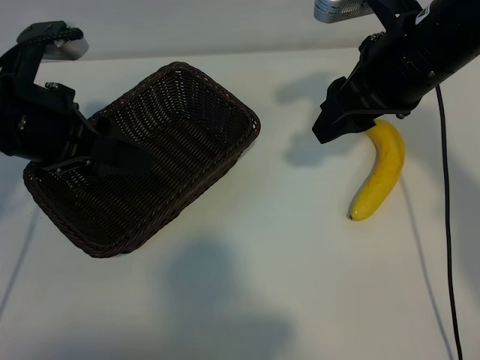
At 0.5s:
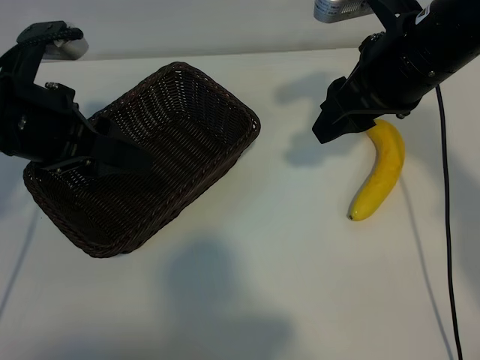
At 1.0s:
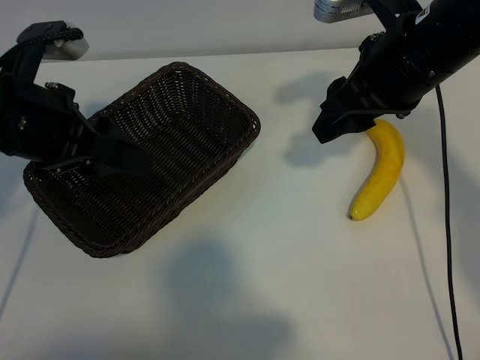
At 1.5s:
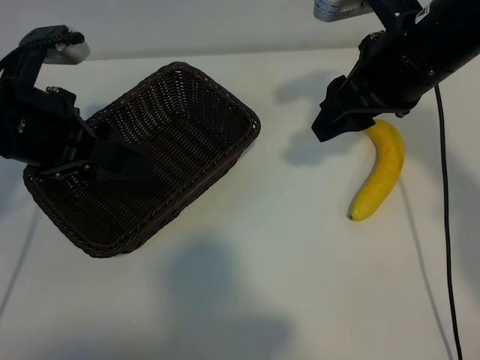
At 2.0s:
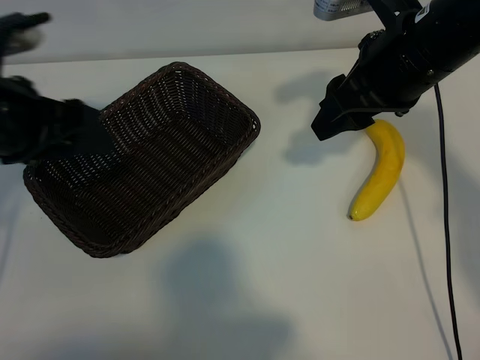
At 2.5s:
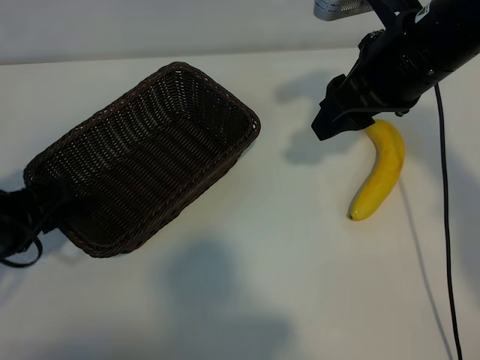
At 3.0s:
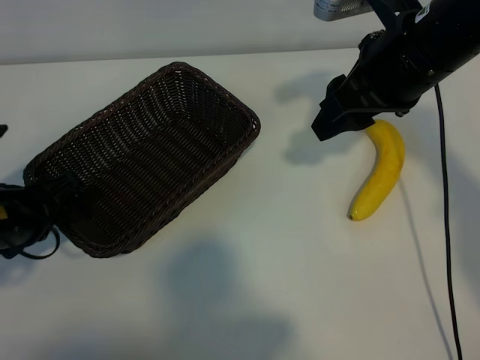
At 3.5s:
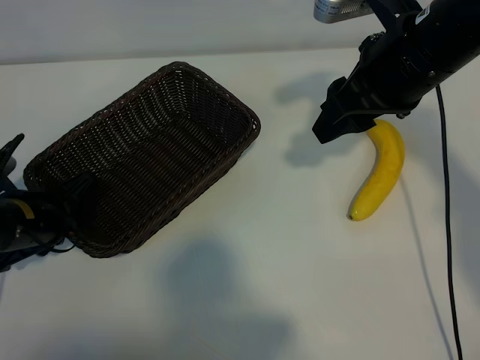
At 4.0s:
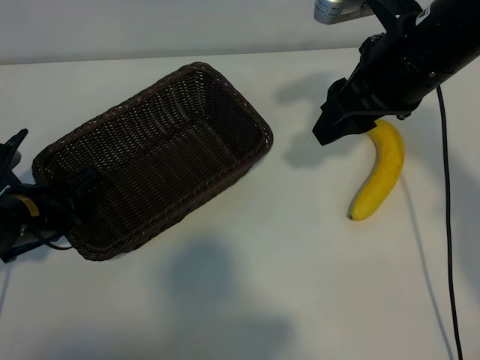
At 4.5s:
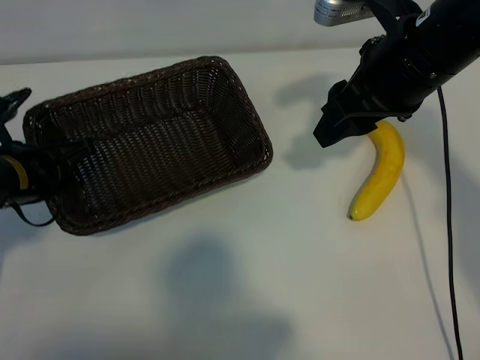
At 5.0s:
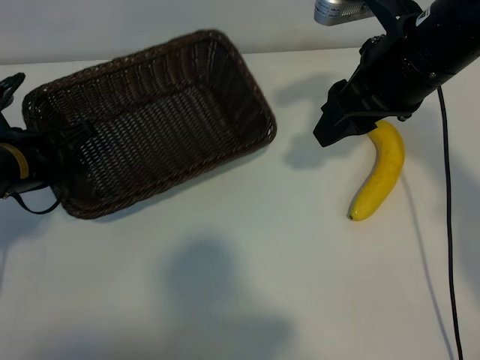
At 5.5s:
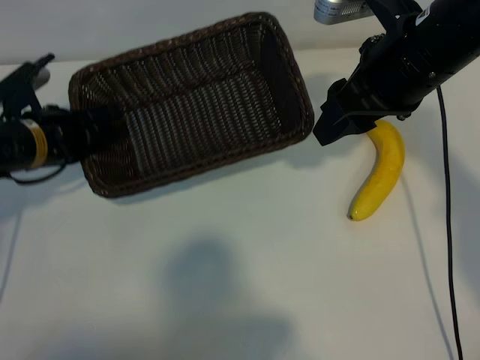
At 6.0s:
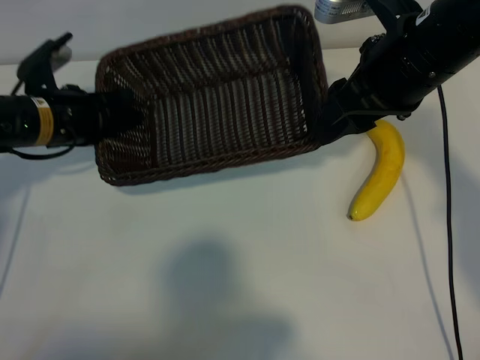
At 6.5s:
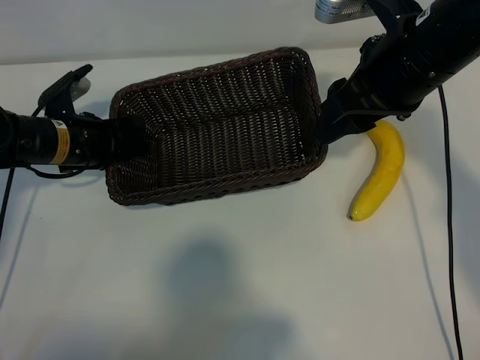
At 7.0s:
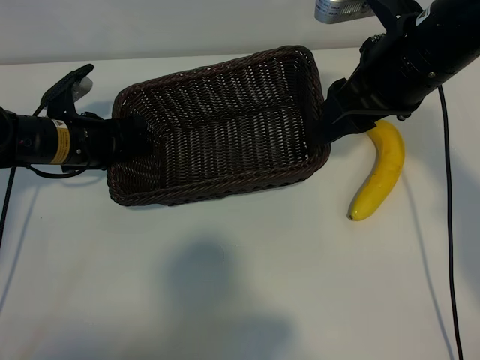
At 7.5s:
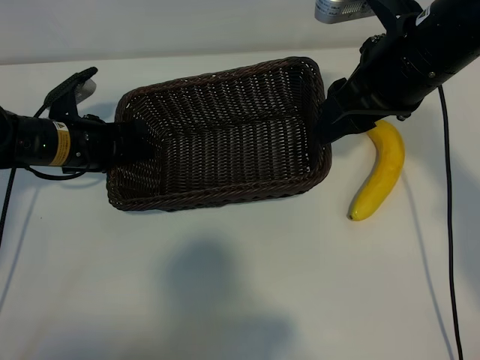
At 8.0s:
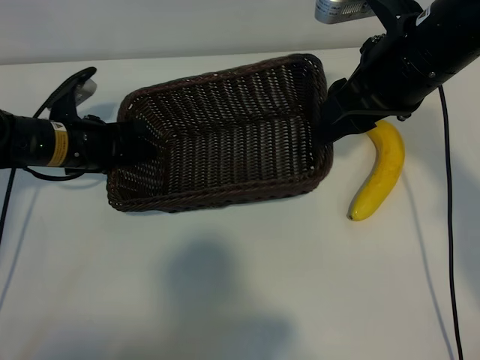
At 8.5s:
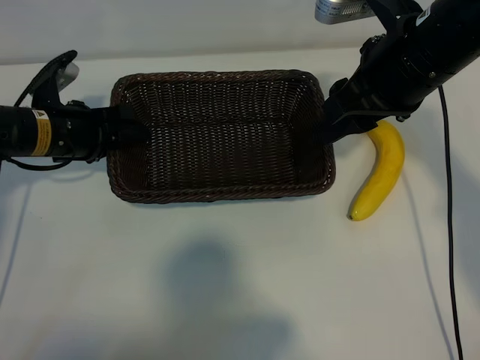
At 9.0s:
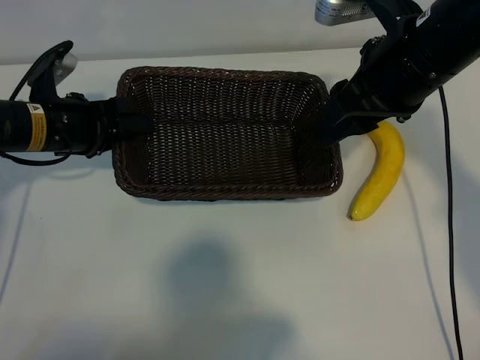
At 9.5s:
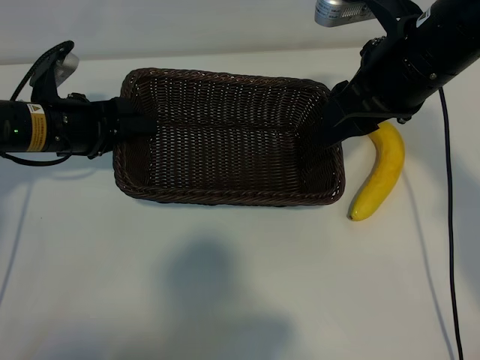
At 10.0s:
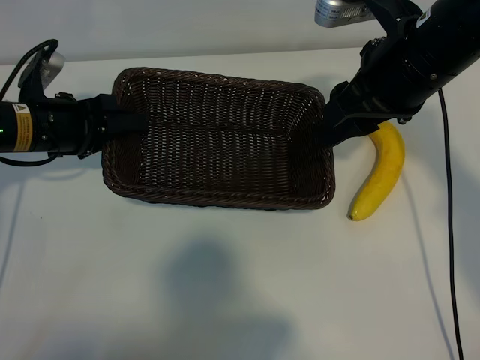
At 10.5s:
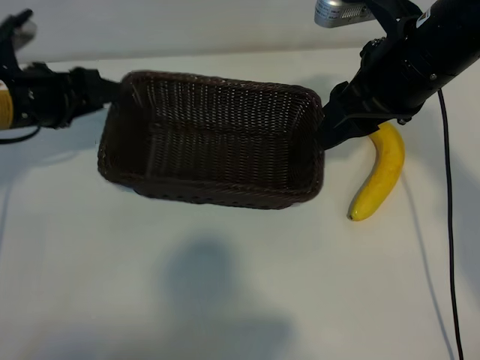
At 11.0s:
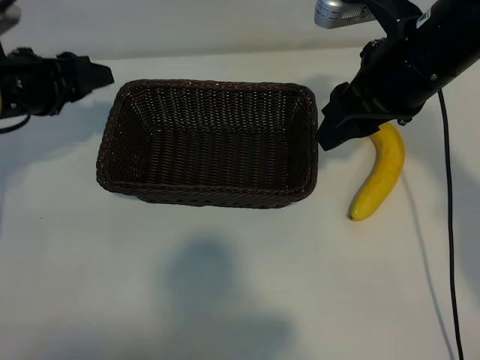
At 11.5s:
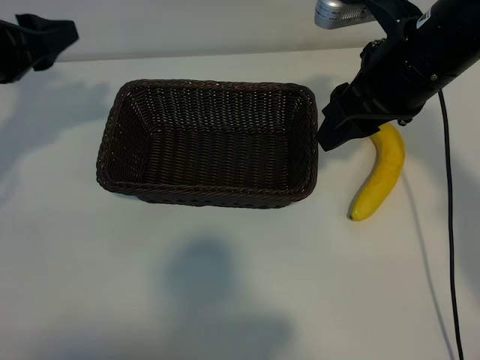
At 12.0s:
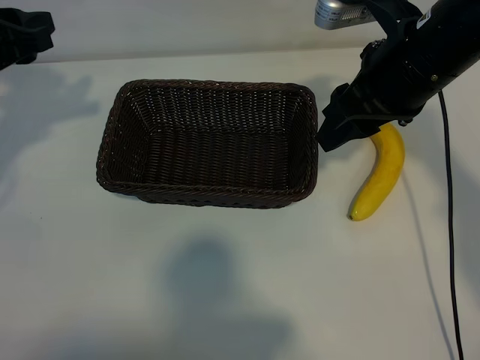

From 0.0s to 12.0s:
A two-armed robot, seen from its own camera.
Task of the whole recording: pick up the banana and put it into the basket.
Step, from 1.0s to 4.0s: Grasp the basket with the left gripper.
Step, from 4.5s to 10.5s: Place the basket in the center of the table with the left gripper.

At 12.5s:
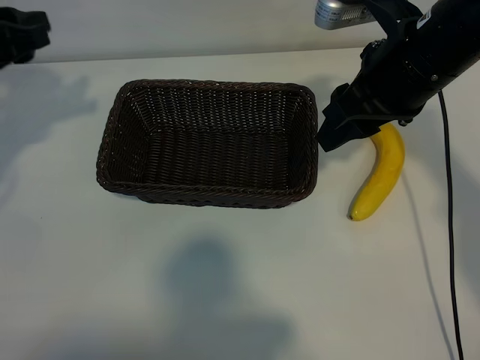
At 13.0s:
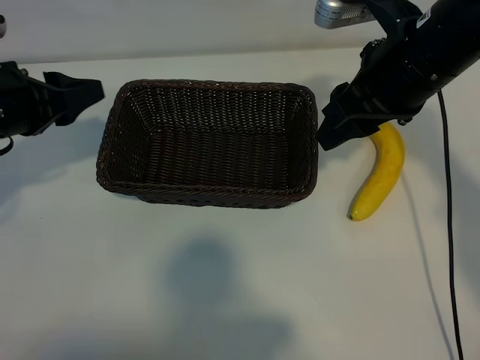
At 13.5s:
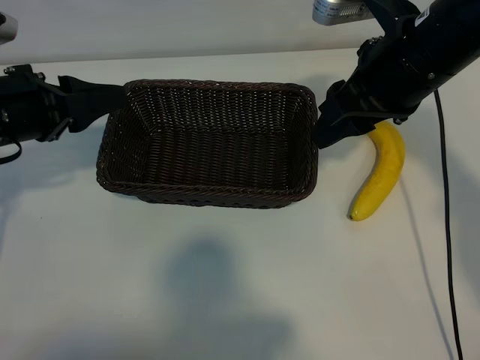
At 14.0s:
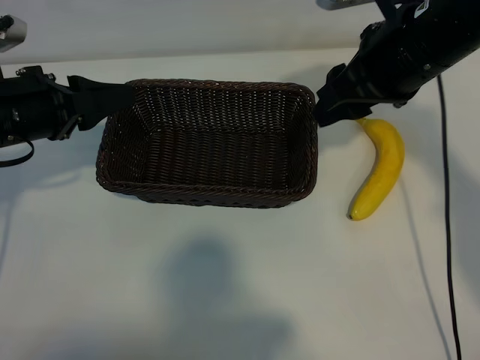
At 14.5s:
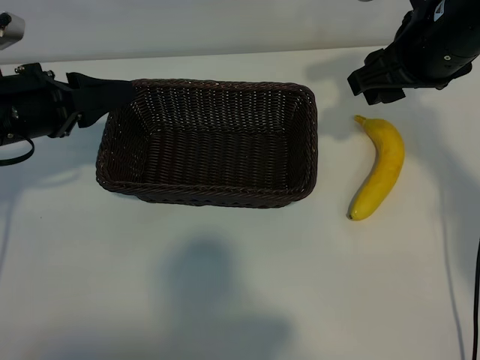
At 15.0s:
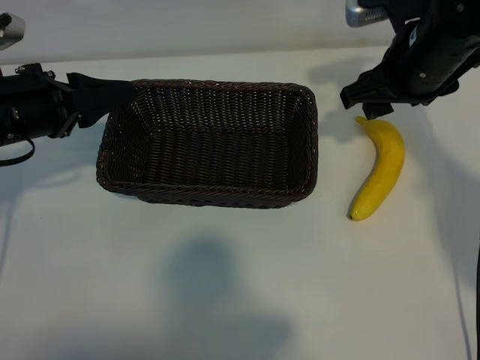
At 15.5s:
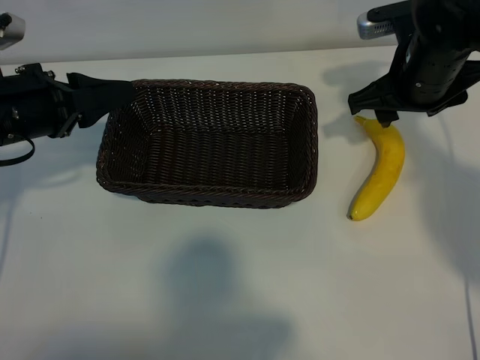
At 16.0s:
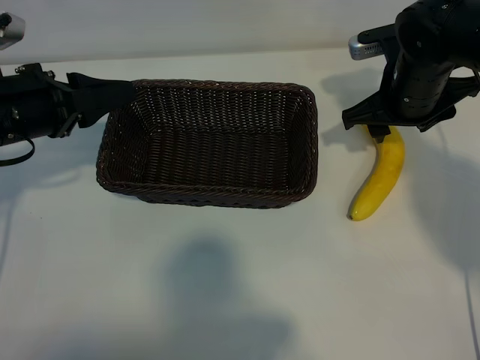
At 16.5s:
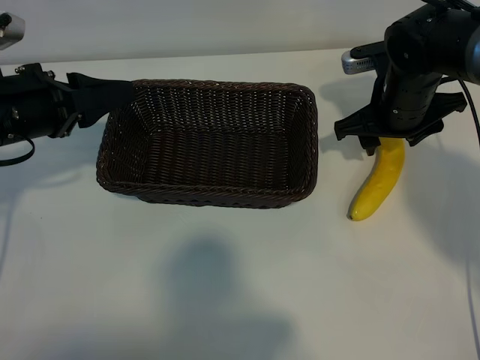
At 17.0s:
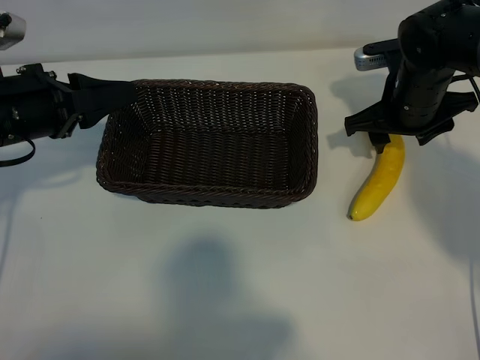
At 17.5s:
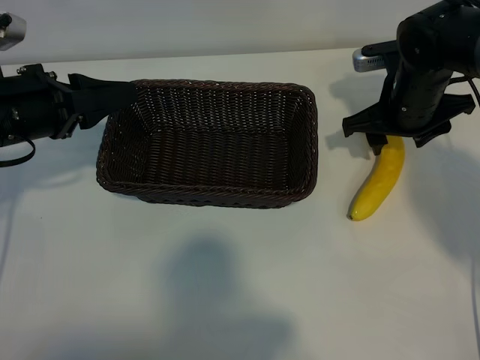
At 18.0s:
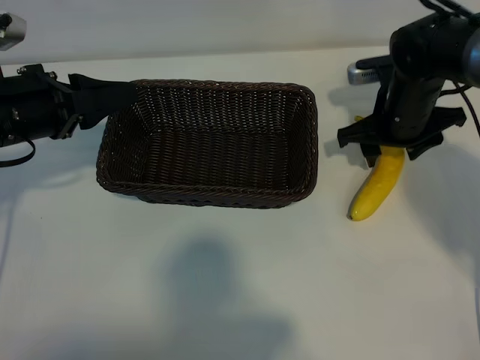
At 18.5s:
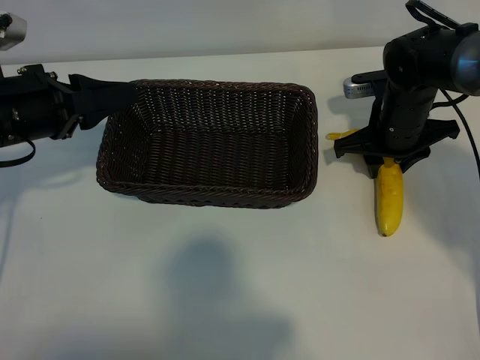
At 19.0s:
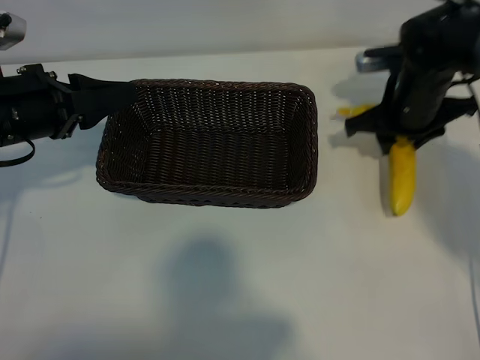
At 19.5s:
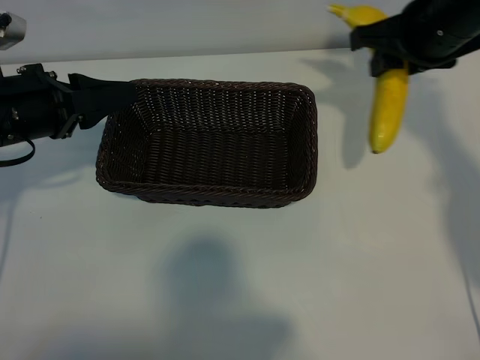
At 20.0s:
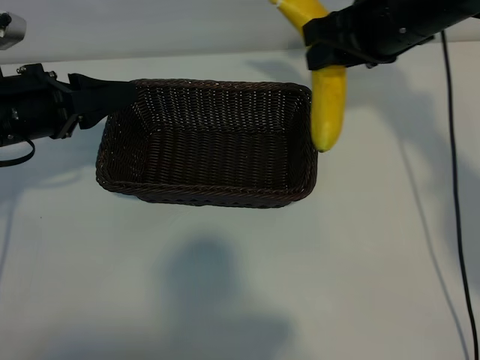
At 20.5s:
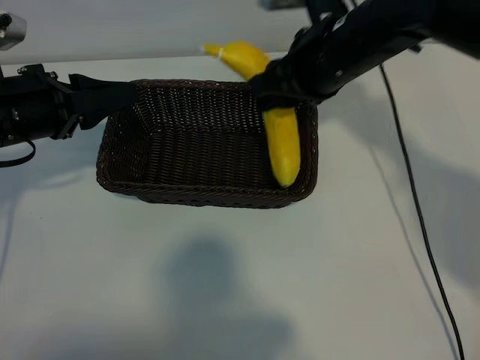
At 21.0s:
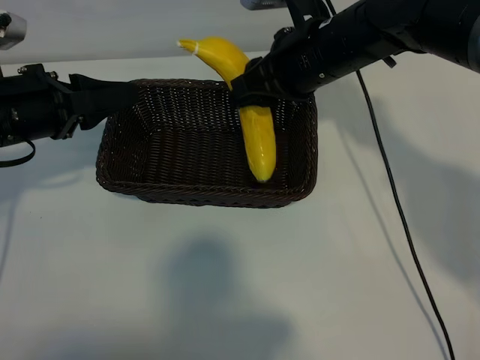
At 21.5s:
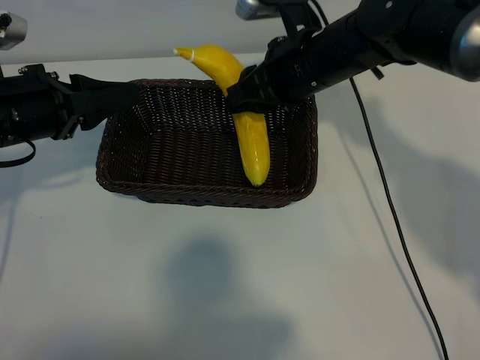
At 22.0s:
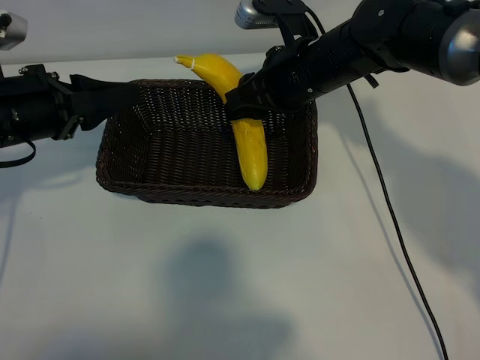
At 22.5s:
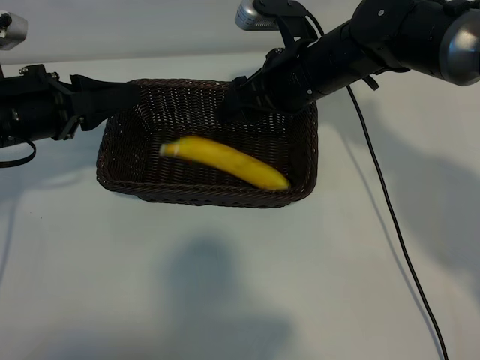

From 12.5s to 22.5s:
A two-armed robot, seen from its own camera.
Task of the whole recording: pick up the banana and put it into the basket.
Step, from 12.5s to 18.5s: Grasp the banana with right gripper.
Step, from 19.0s to 22.0s: Place the banana in the basket with right gripper.
